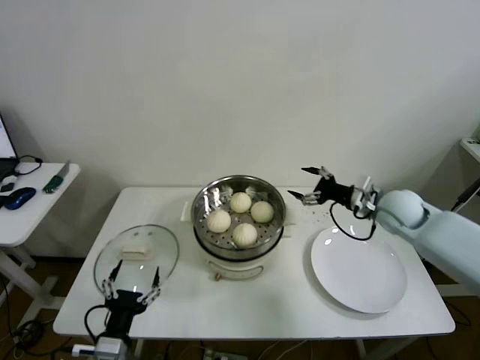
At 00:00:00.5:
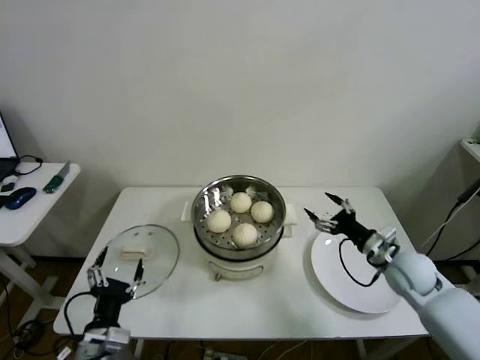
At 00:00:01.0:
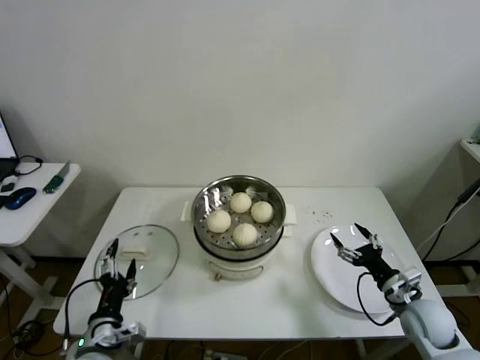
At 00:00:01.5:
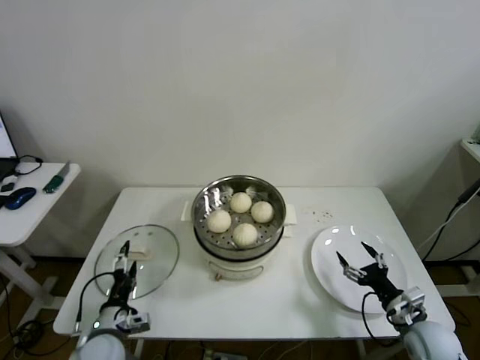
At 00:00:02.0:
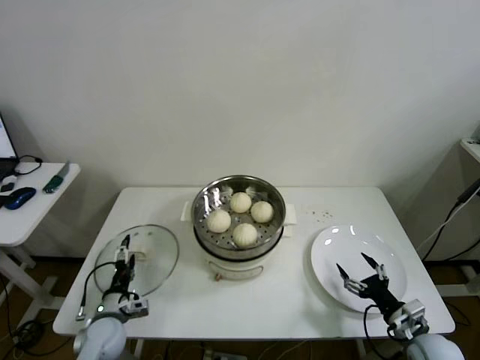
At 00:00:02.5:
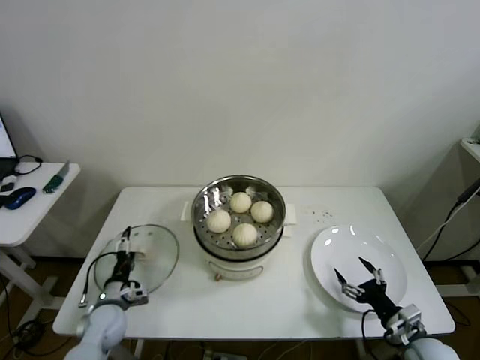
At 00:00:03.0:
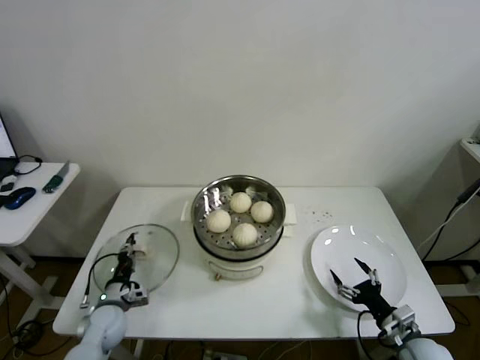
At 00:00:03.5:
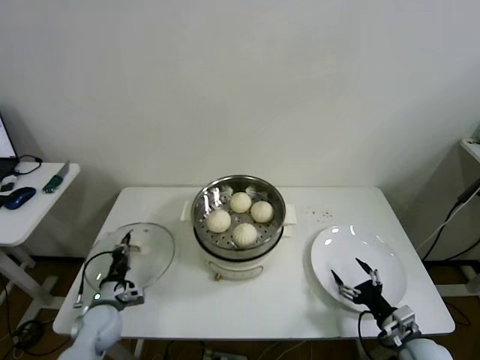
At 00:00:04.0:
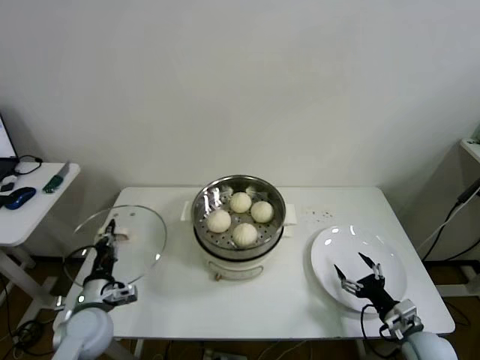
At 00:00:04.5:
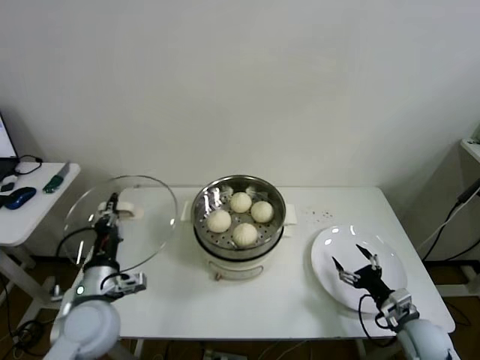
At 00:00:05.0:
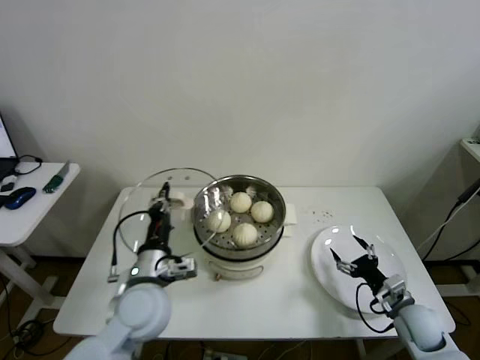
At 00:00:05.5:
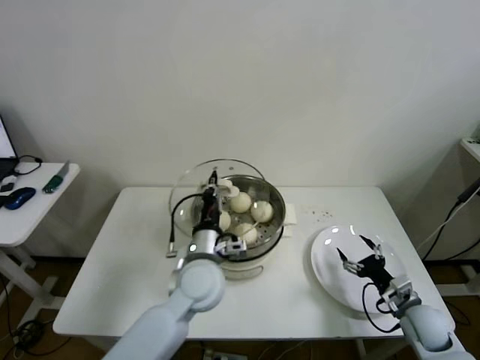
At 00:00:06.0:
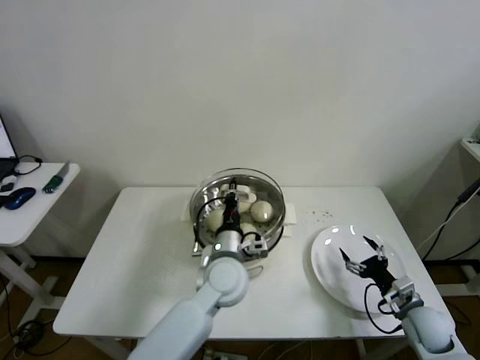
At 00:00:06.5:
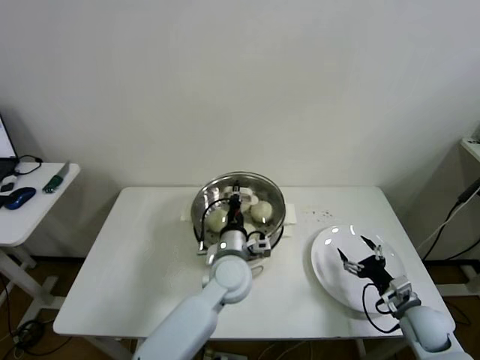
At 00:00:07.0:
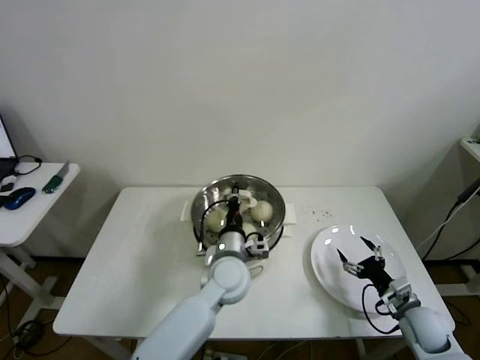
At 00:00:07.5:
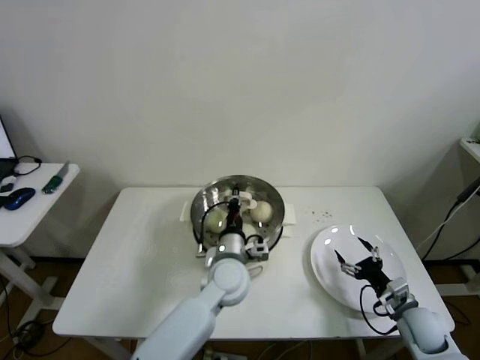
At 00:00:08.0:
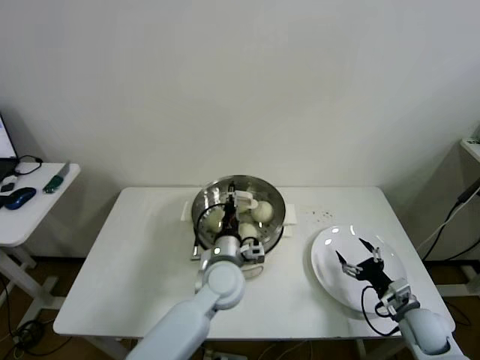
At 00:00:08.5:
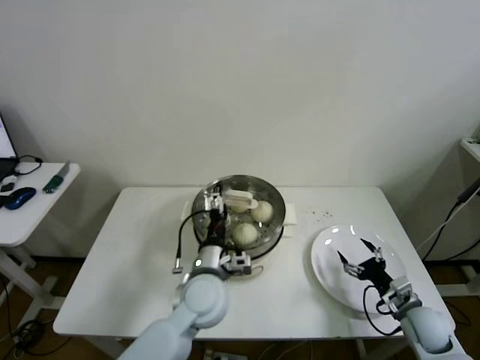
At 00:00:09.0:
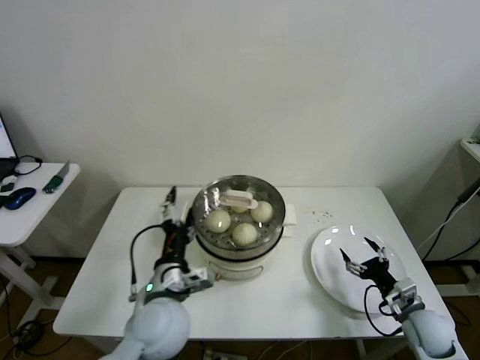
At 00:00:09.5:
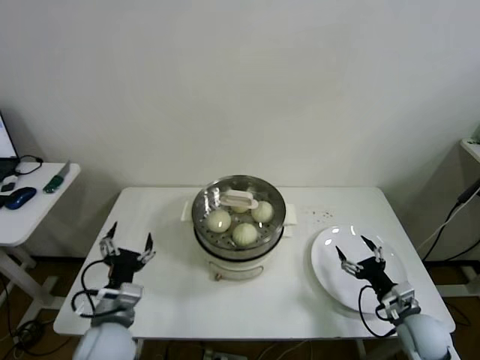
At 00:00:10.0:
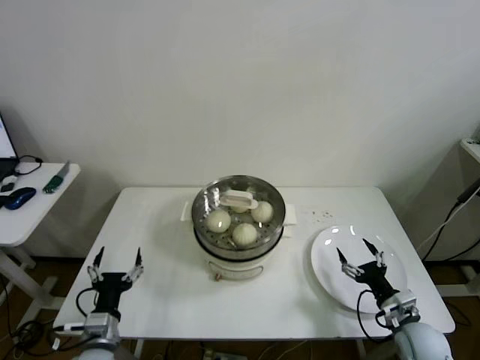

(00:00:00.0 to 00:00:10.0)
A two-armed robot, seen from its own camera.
Step, 00:00:00.0 - 00:00:03.0: Grasp the pot lid with left gripper.
Step, 00:00:03.5 - 00:00:07.5: Place the pot lid on the steamer with left gripper.
00:00:00.0 - 00:00:02.0: The right gripper travels backward and downward by approximately 30 cm. Meanwhile the left gripper heads forward, downward and to the left, covering about 20 cm.
00:00:02.0 - 00:00:04.0: The left gripper travels upward by about 5 cm, and closes.
00:00:04.0 - 00:00:06.0: The right gripper moves approximately 5 cm, while the left gripper shifts about 30 cm to the right.
00:00:06.0 - 00:00:08.0: The left gripper opens its fingers.
00:00:08.0 - 00:00:10.0: The left gripper moves to the left and backward, about 30 cm, and opens up.
